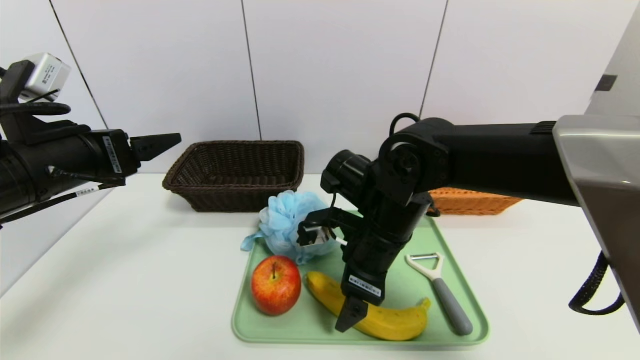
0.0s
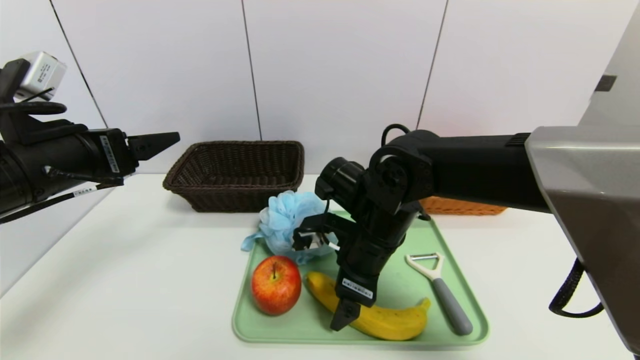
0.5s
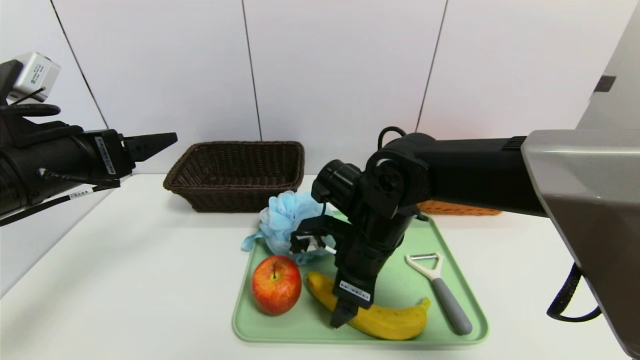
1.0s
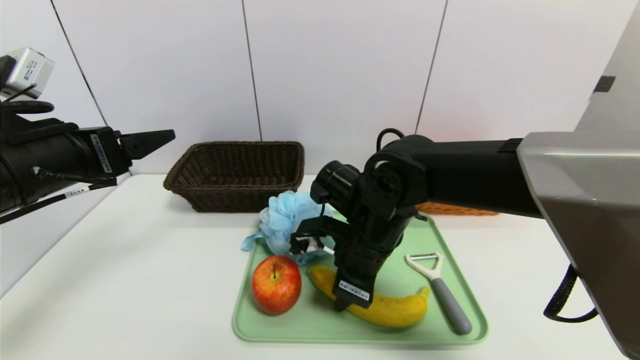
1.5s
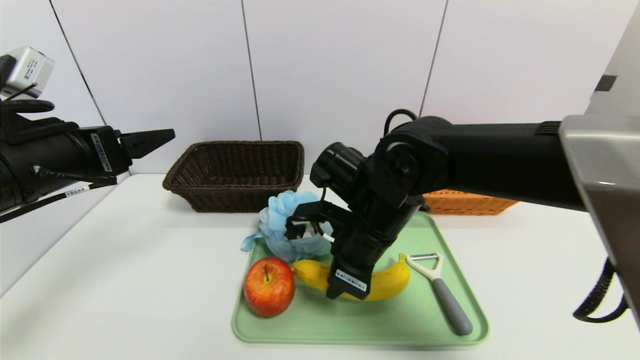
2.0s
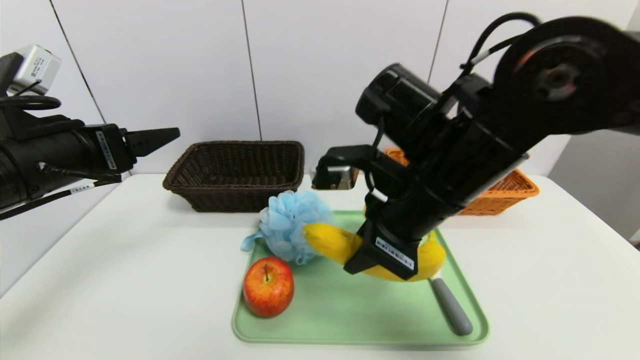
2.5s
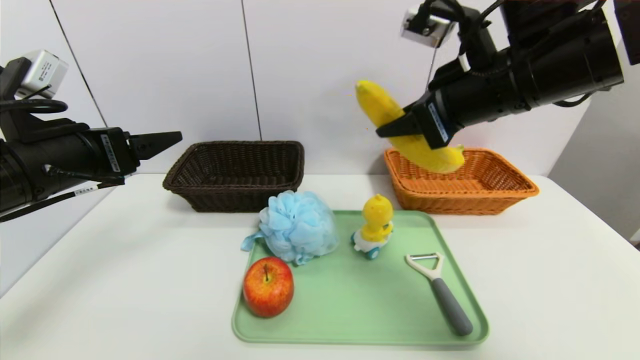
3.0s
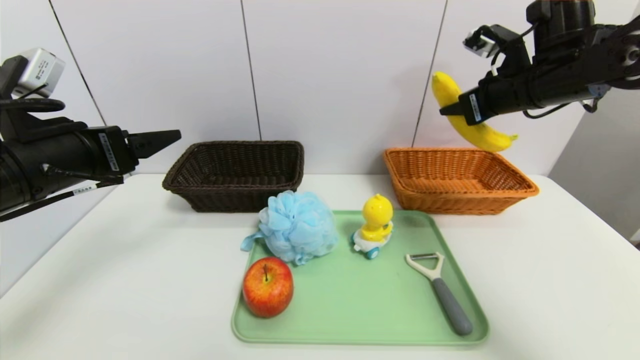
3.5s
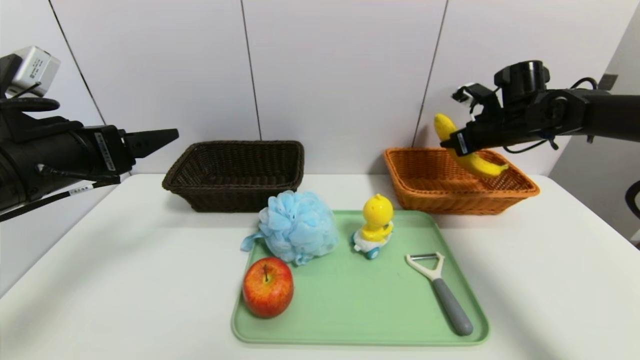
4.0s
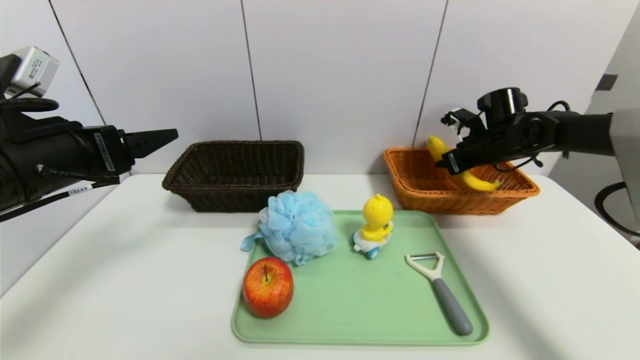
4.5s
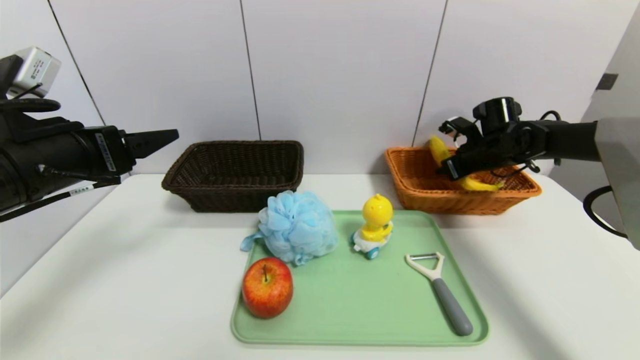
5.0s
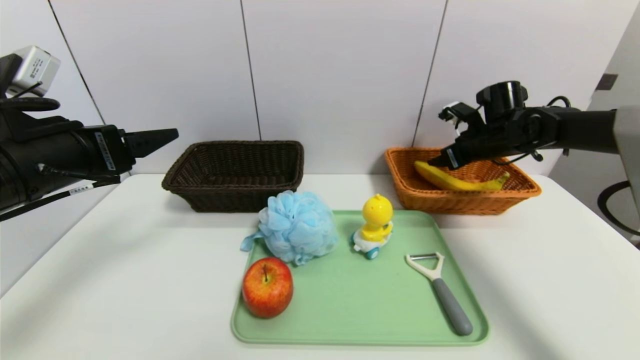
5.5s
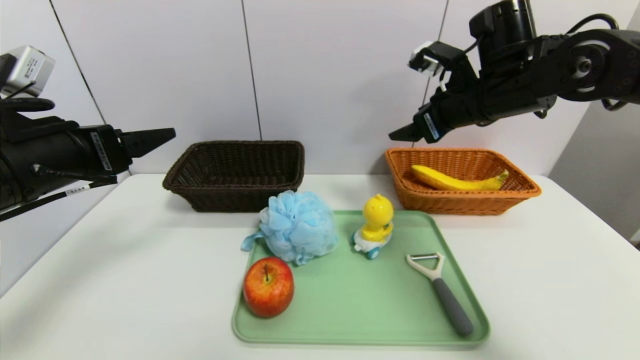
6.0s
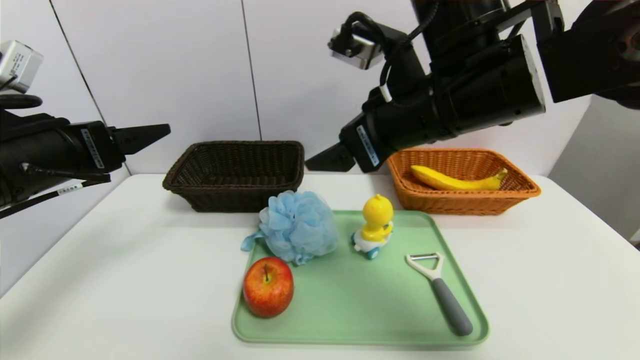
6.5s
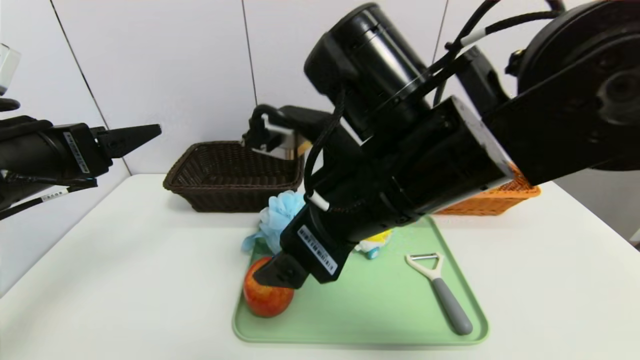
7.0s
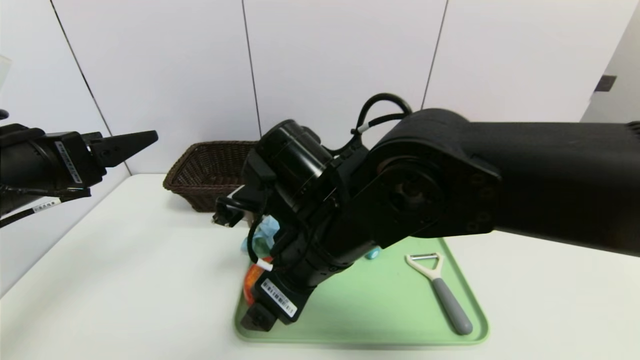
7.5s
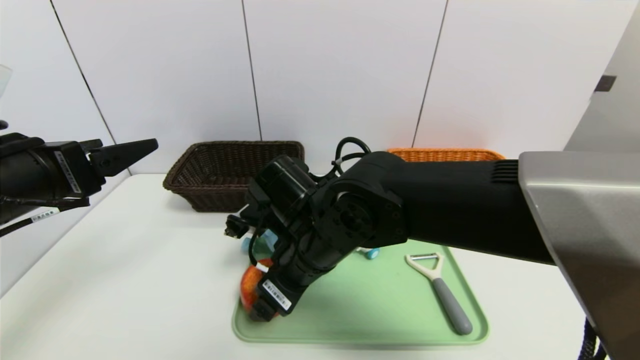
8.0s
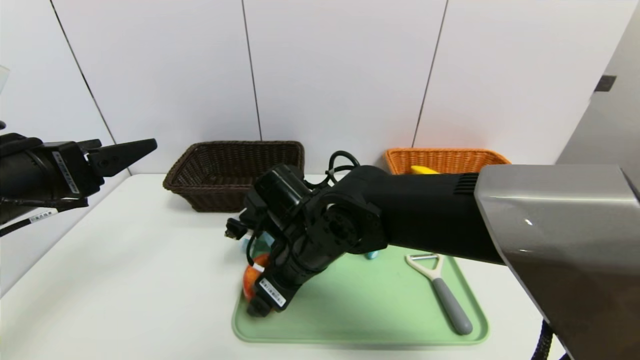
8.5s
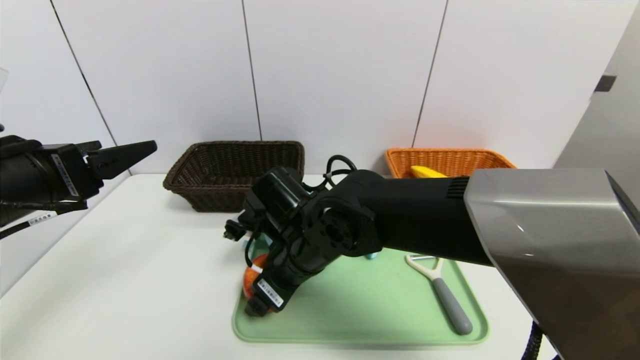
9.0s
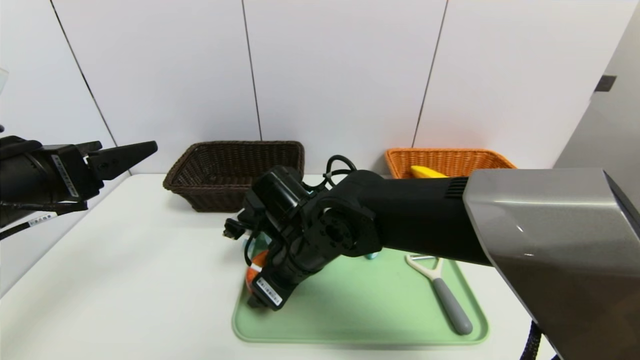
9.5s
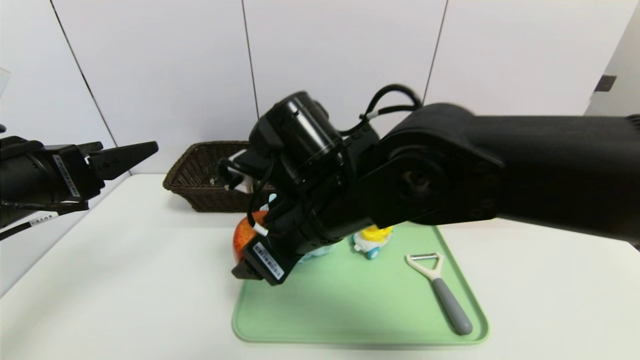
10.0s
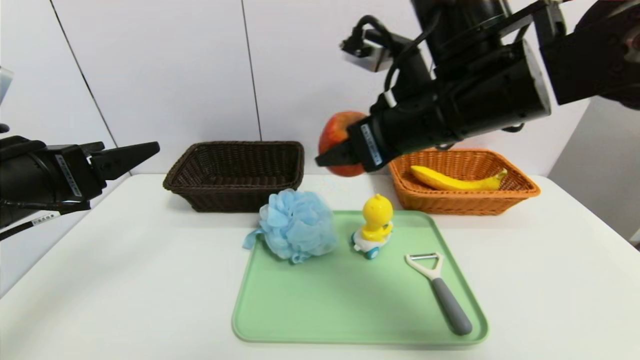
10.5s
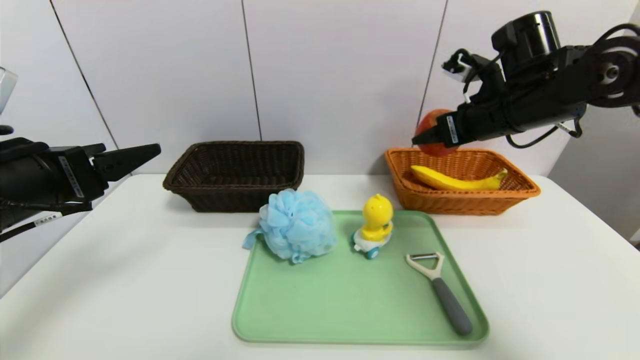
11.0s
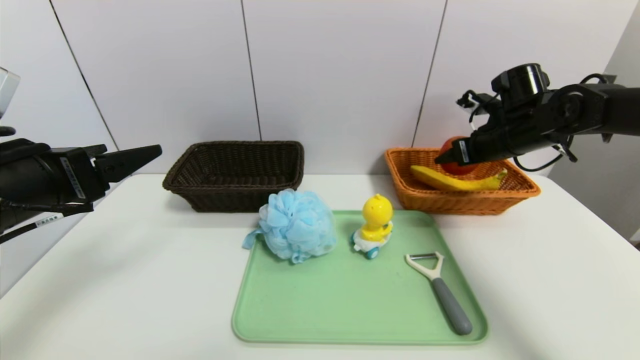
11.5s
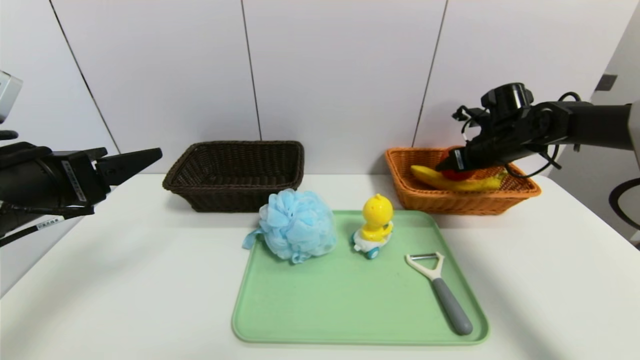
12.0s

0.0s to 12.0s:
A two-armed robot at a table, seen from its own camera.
Task of the whole recording: place the food in the right basket with the right gripper, and place the non food items in the left basket with the left gripper.
Step, 0.0s to 5.5s: Grasp the banana and put it in the right basket.
0.0s to 2.0s: The right gripper closes up.
2.0s to 4.0s: The right gripper heads to the right and forward, covering roughly 30 cm.
4.0s to 6.0s: The right gripper moves to the left, backward and upward, approximately 15 cm, and opens up.
6.0s to 8.0s: The right gripper moves to the left, downward and backward, some 30 cm.
8.0s to 10.0s: The right gripper shifts roughly 5 cm upward.
10.0s to 12.0s: The right gripper travels to the right and forward by some 40 cm.

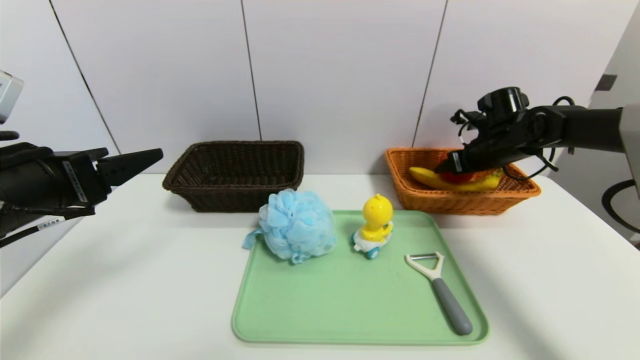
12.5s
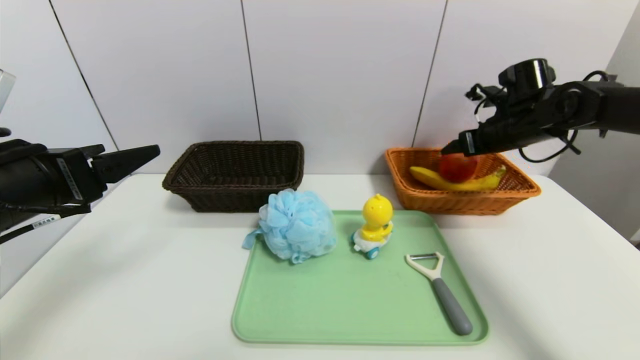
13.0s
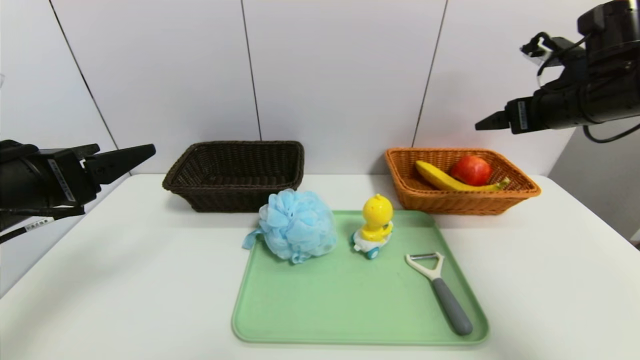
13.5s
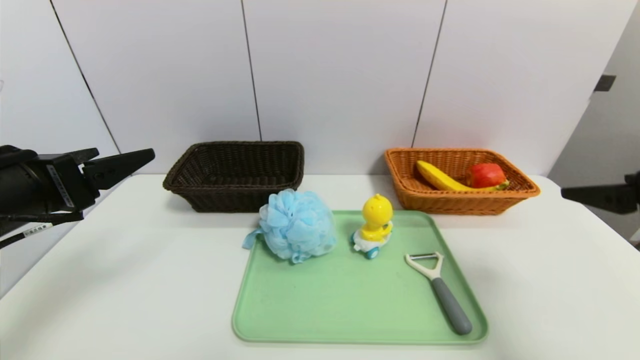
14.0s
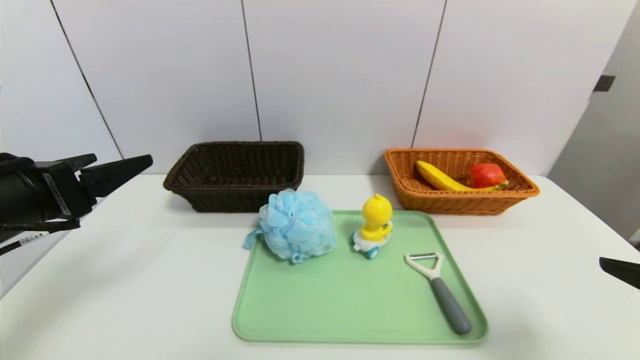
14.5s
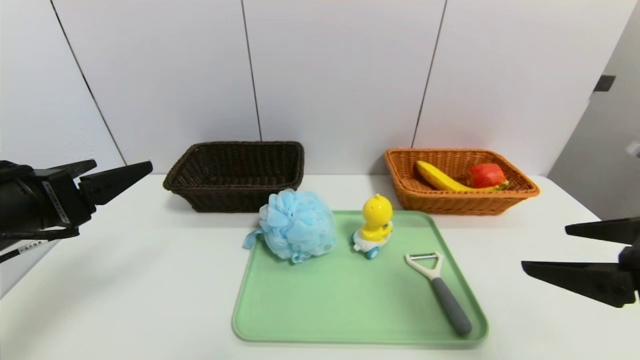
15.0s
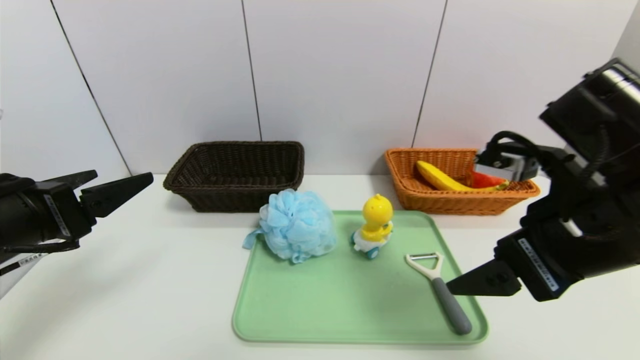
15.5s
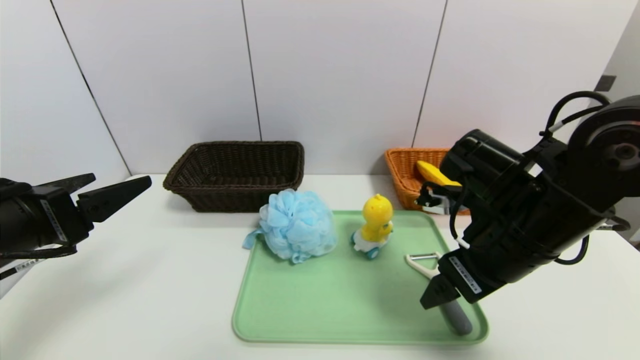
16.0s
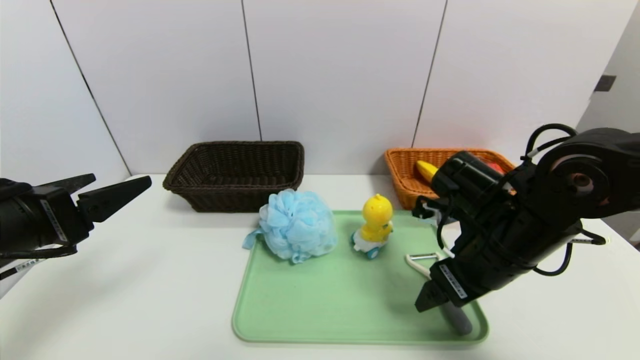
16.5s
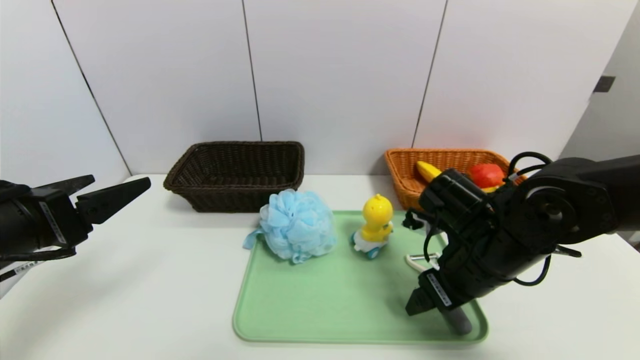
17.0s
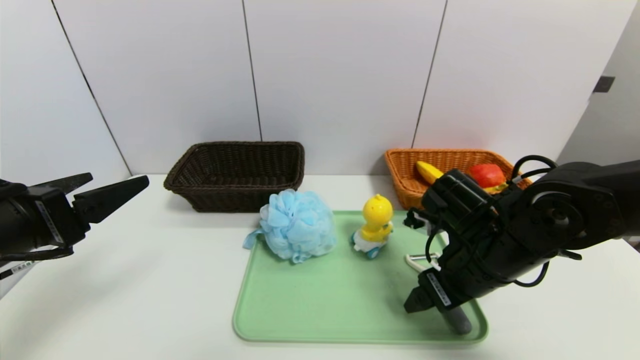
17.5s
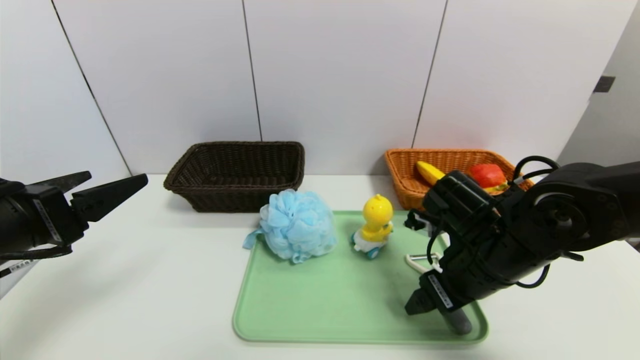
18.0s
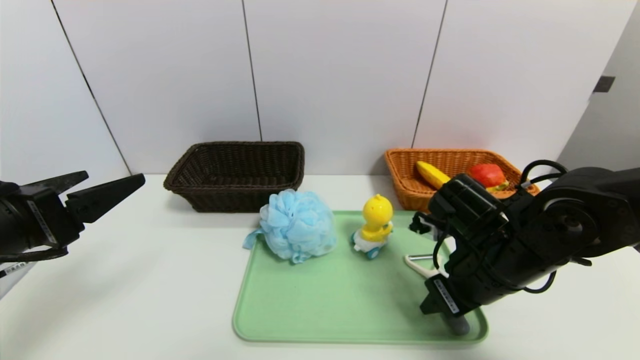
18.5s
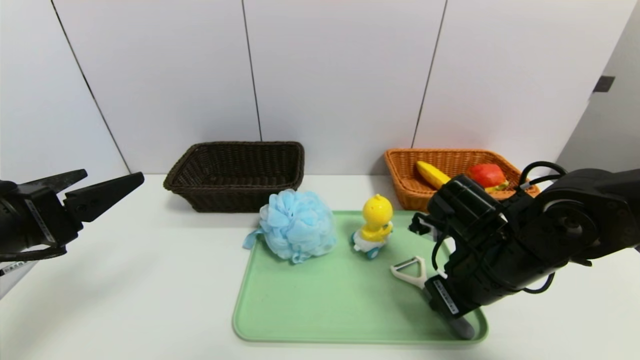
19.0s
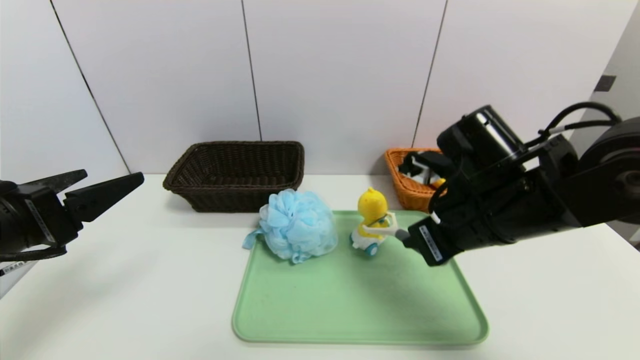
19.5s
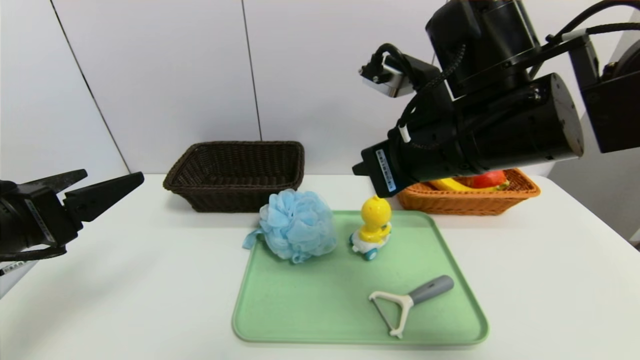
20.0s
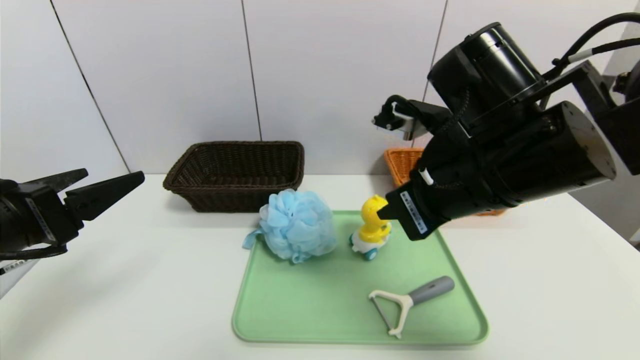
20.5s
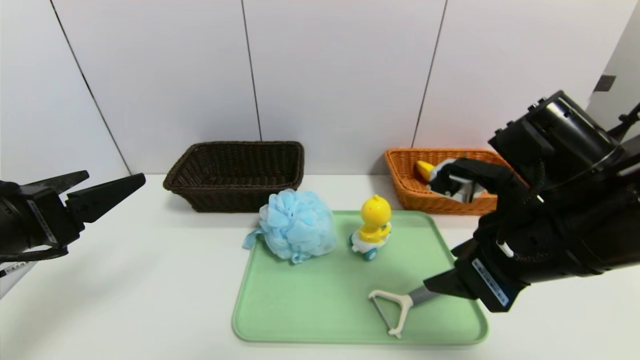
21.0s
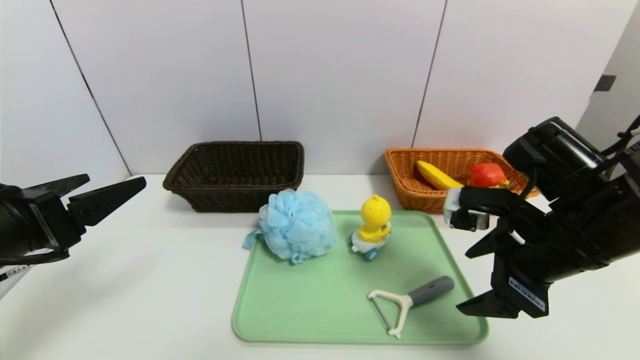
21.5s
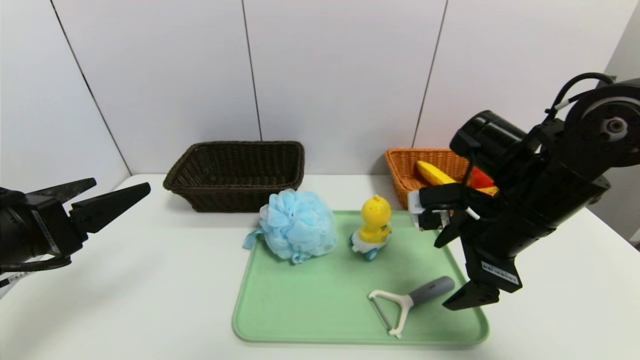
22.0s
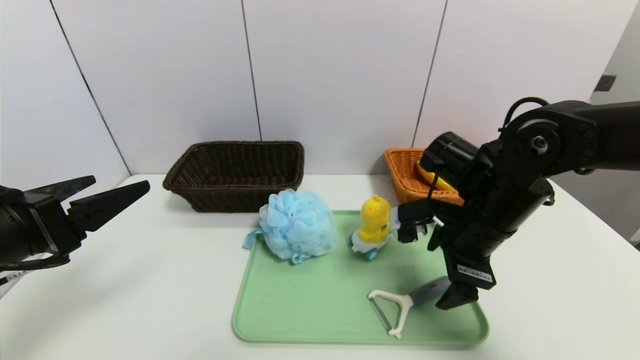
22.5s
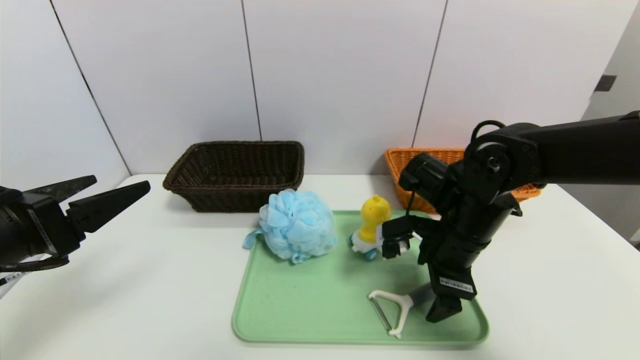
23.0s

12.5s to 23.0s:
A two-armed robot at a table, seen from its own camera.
Task of the whole recording: place the food in the right basket with the right gripper, and place the non food items in the left basket with the left gripper.
12.5s to 14.5s: The right gripper moves backward, approximately 35 cm.
14.5s to 16.5s: The right gripper travels forward, to the left and downward by approximately 20 cm.
16.5s to 19.0s: The right gripper closes up.
19.0s to 21.0s: The right gripper goes about 10 cm upward and backward, and opens.
21.0s to 23.0s: The right gripper shifts about 15 cm forward and downward.
